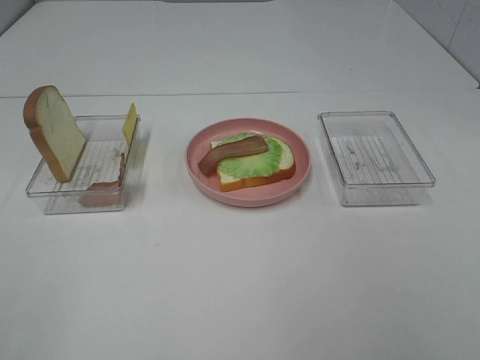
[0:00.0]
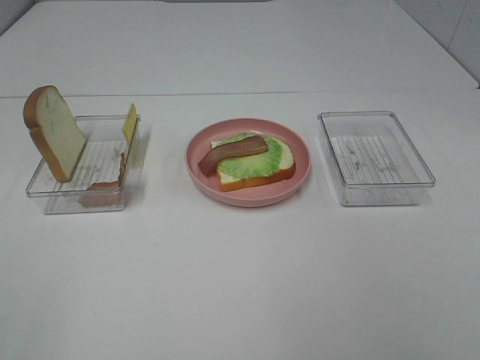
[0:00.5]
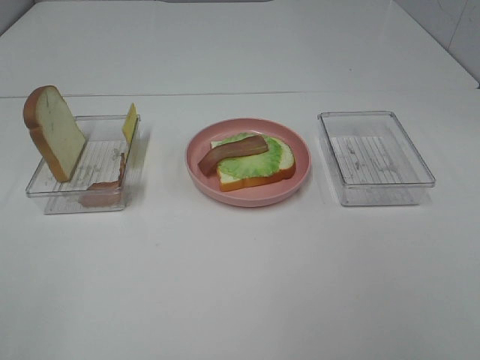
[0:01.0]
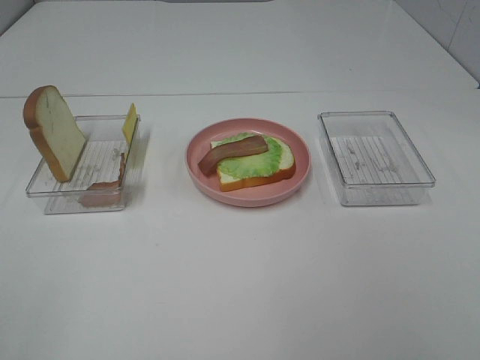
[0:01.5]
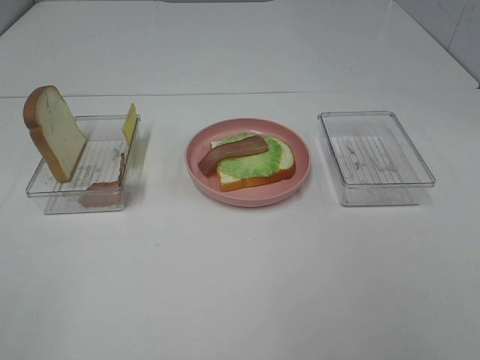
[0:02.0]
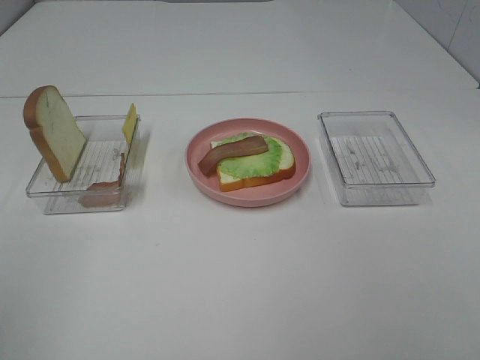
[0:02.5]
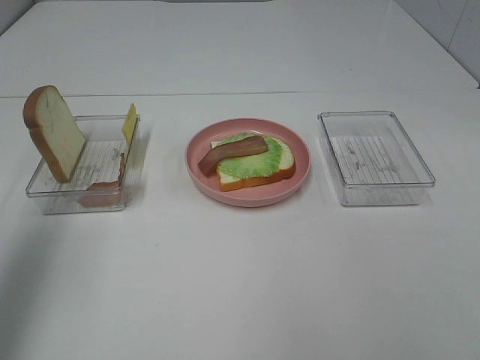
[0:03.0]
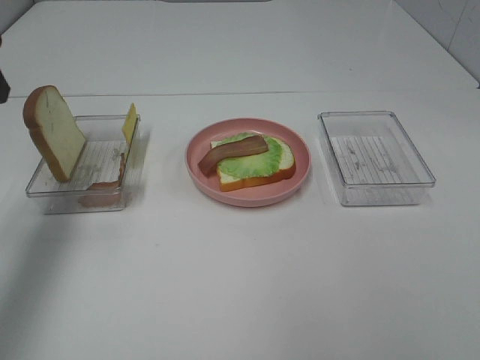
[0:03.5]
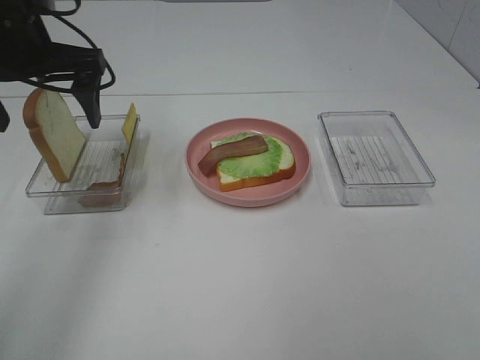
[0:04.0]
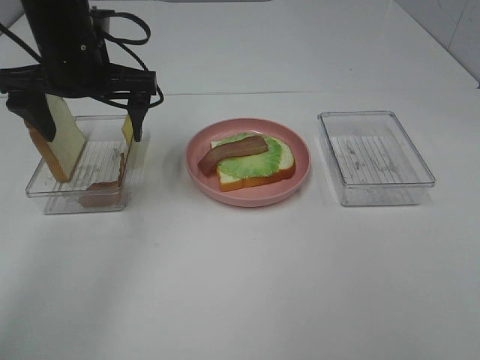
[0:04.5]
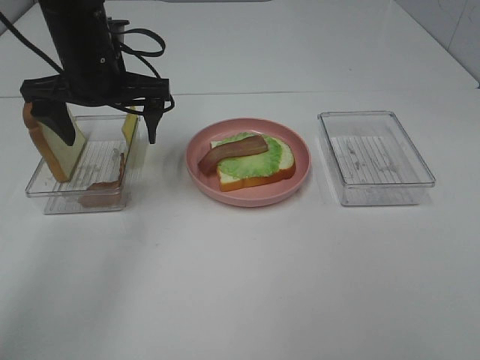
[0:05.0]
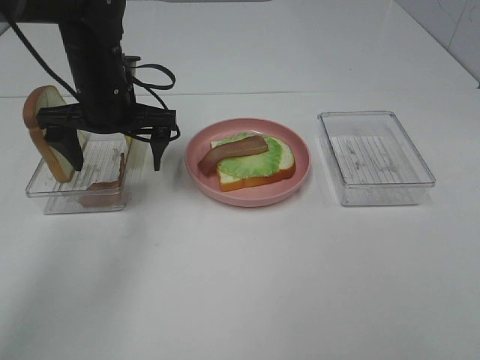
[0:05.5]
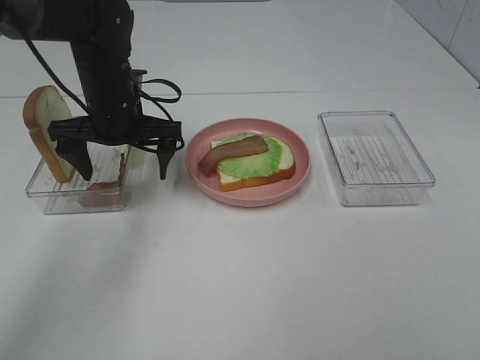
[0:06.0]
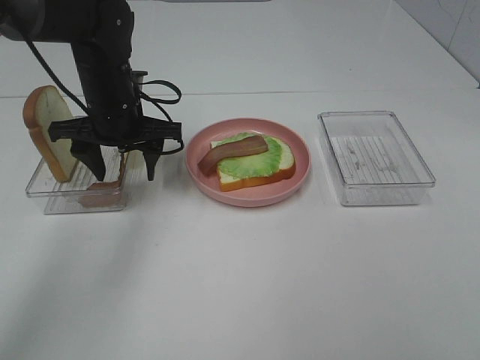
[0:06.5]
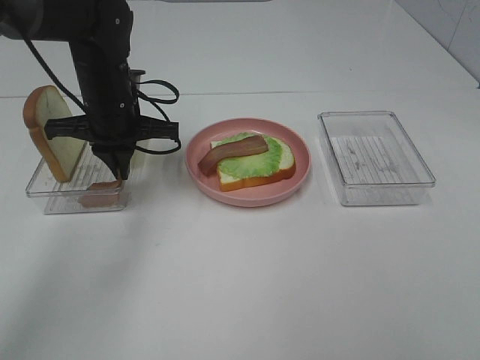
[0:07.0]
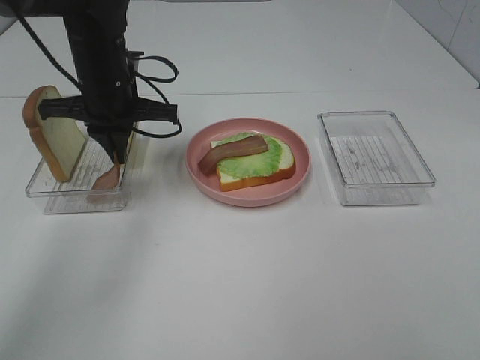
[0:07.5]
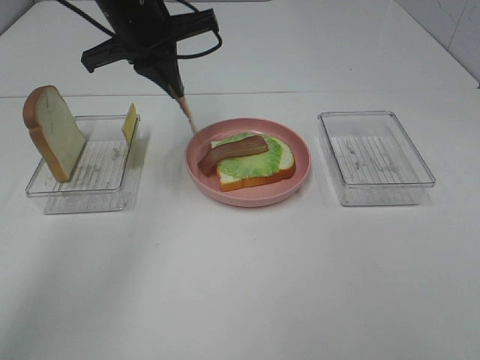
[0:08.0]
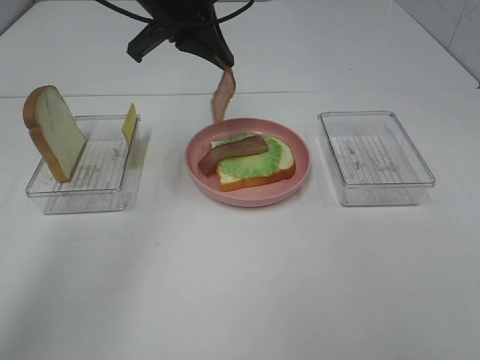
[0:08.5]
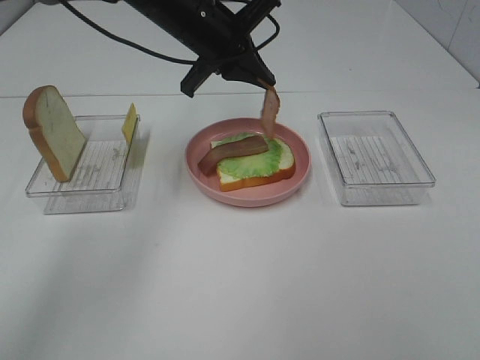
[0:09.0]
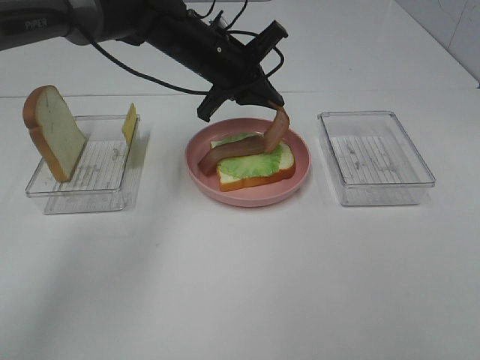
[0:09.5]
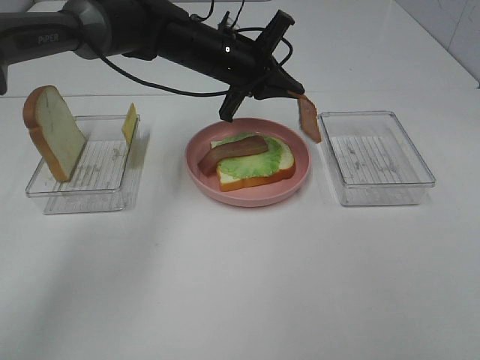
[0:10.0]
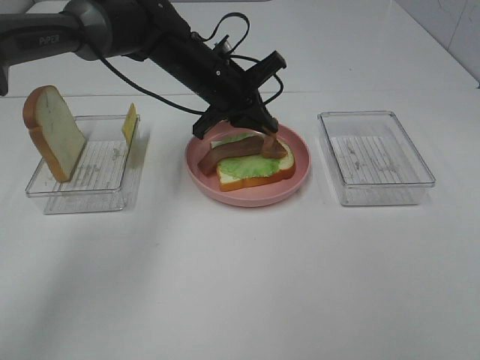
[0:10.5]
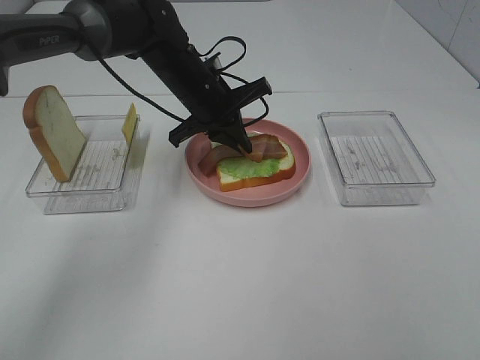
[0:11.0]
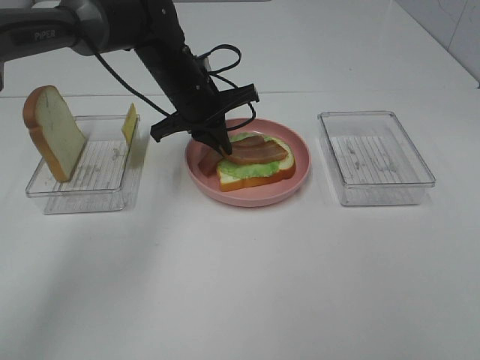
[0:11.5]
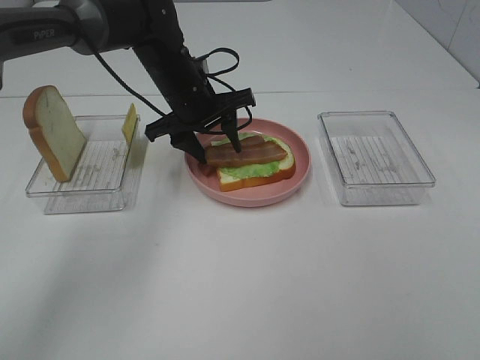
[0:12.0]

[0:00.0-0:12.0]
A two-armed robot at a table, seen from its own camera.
Task of the whole recording: Make sandwiches.
Step, 0:00.0 to 0:07.0: Left hand:grab the bacon.
0:00.0 to 0:02.0: Both grippers stay about where they are.
0:02.0 to 0:04.0: The left gripper moves forward, approximately 35 cm.
0:04.0 to 0:06.0: The left gripper goes roughly 15 cm downward and to the right.
0:06.0 to 0:08.0: The left gripper moves upward, approximately 10 cm, and closes its fingers.
0:08.0 to 0:10.0: The left gripper goes approximately 10 cm downward and to the right.
0:10.0 to 0:12.0: The left gripper ends up about 5 cm from where it was, and opens.

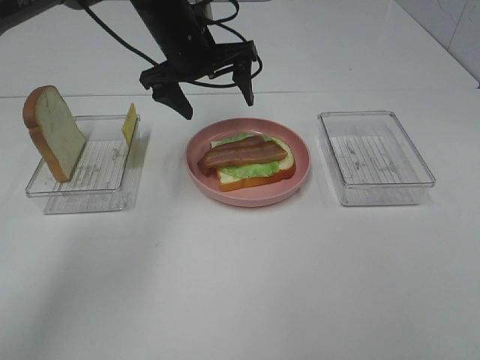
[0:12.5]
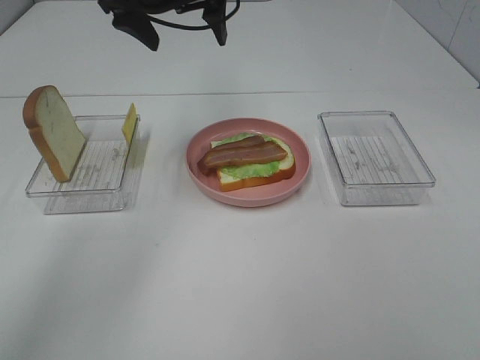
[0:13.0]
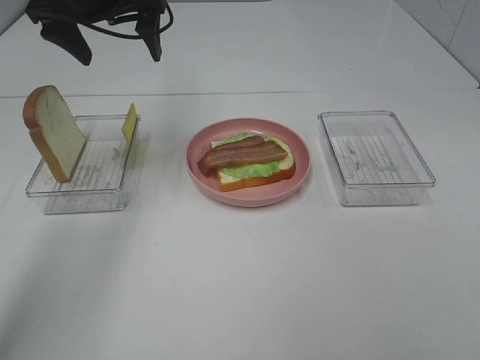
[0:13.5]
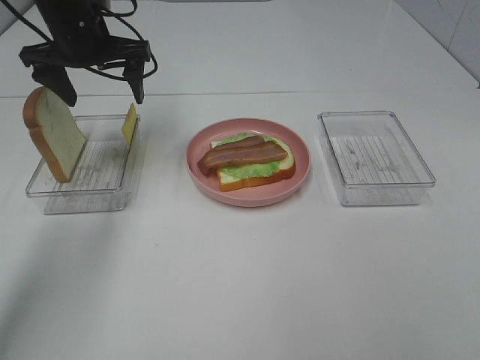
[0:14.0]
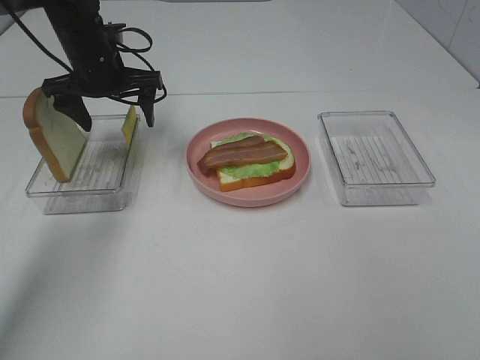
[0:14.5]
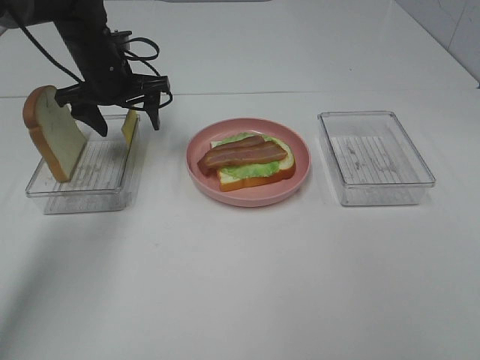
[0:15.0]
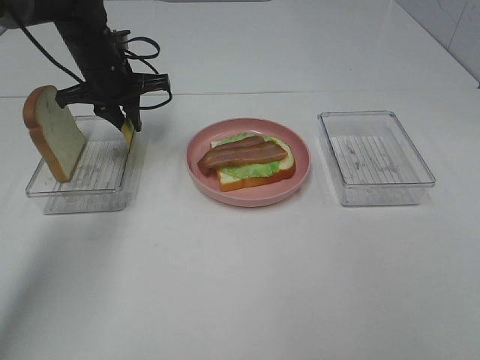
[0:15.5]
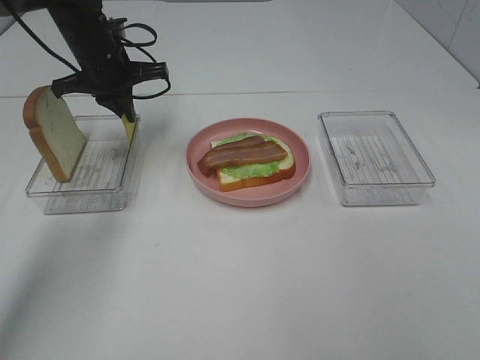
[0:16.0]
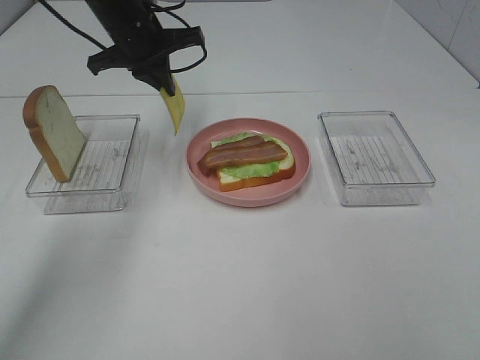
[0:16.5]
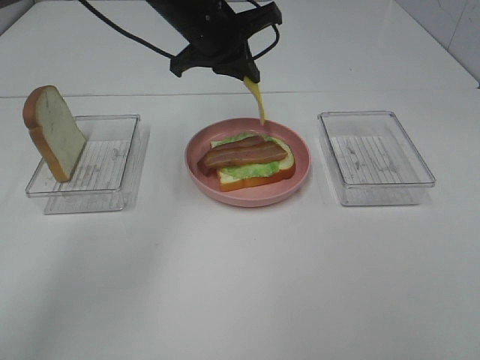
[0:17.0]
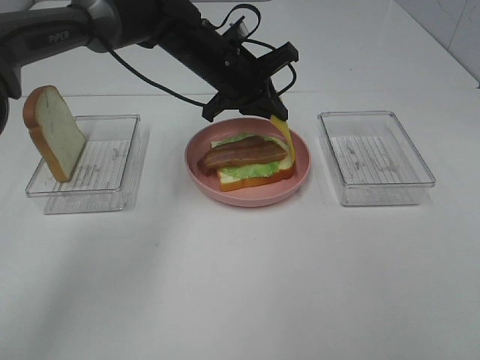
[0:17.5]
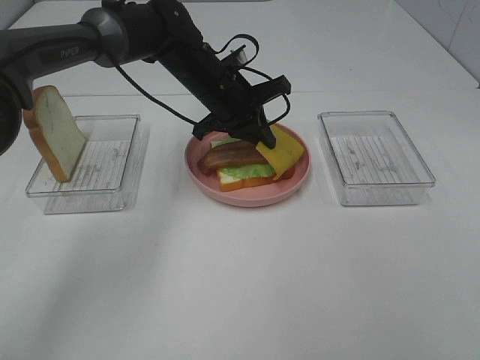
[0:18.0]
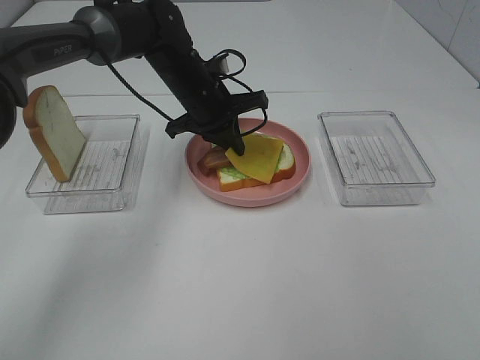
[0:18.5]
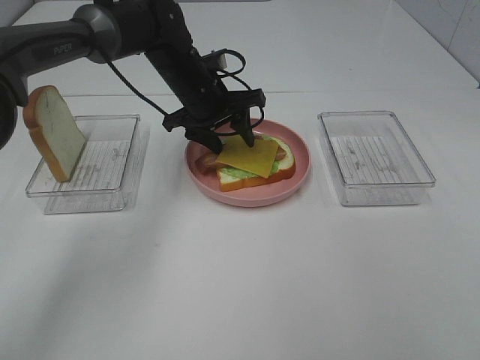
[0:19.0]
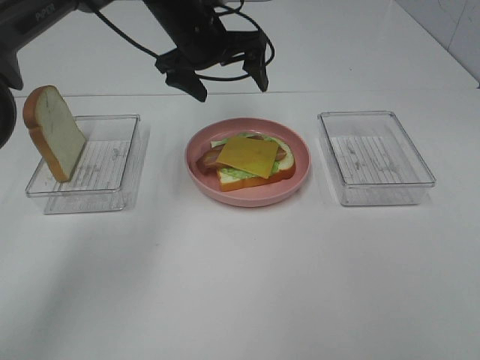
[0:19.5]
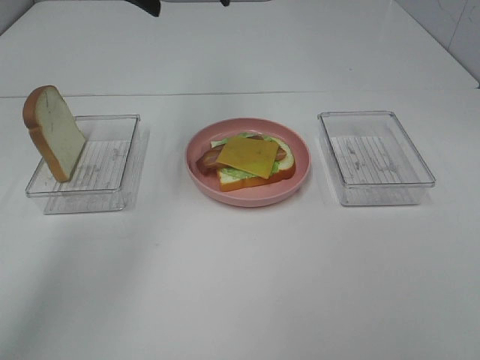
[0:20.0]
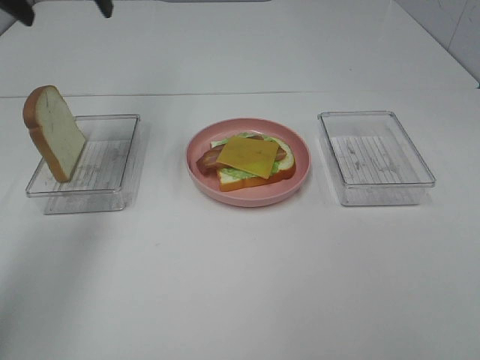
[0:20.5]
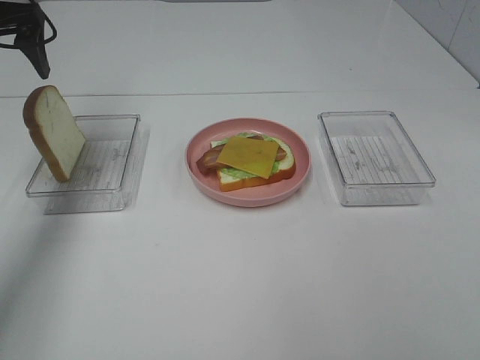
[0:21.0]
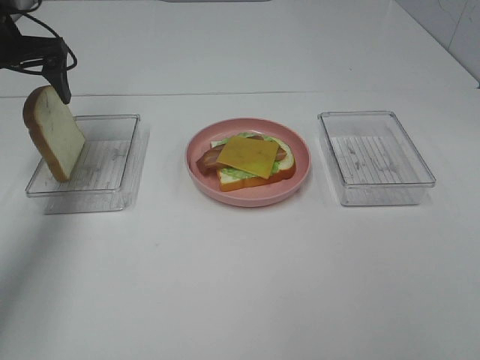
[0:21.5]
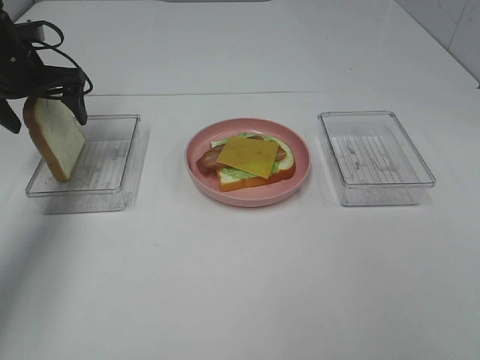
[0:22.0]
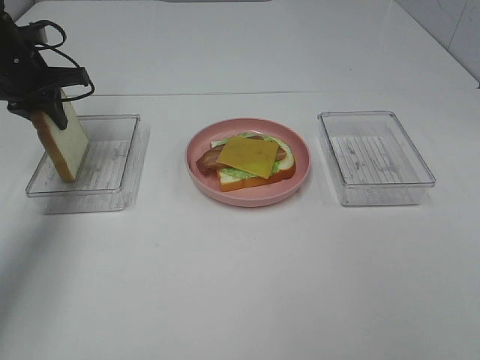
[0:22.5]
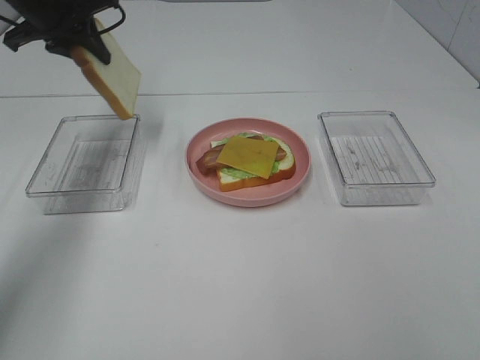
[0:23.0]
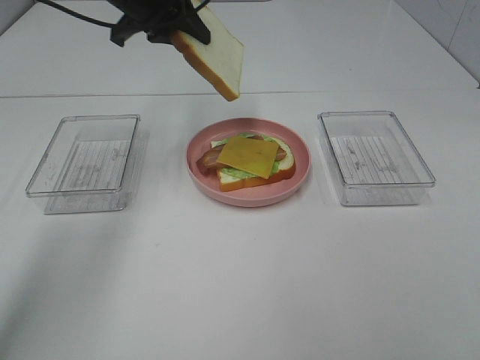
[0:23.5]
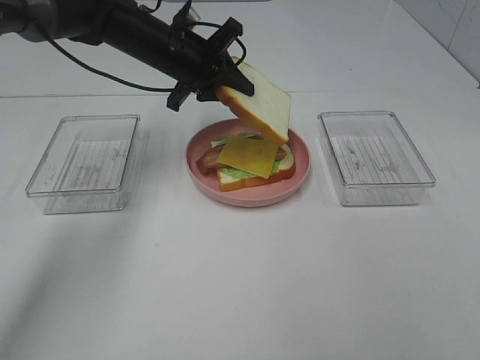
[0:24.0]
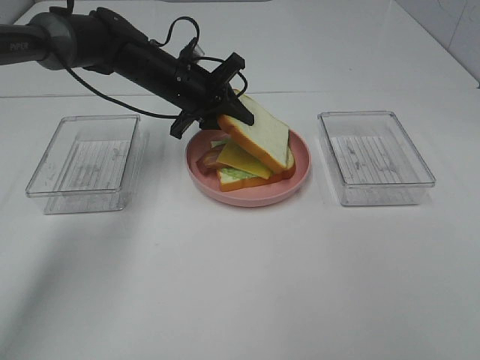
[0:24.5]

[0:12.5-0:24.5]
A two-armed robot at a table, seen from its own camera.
Task of the whole recording: Make sandwiches.
Step, 0:13.0 to 0:16.0: Left hand:grab the cheese slice.
Step, 0:16.5 to 0:19.0: Left hand:place the cheese slice on top of the bacon.
0:12.5 to 0:14.5: The left gripper goes approximately 10 cm to the left, and reaches approximately 10 cm upward, then returns.
0:14.5 to 0:16.5: The left gripper travels to the right by about 5 cm, and closes.
0:16.5 to 0:18.5: The left gripper shifts approximately 10 cm downward and to the right.
0:18.5 to 0:20.5: The left gripper is displaced upward and to the left by about 25 cm, and opens.
0:20.5 to 0:22.5: The left gripper heads downward and to the left, covering about 15 cm, and closes up.
0:22.5 to 0:24.5: The left gripper goes roughly 20 cm to the right.

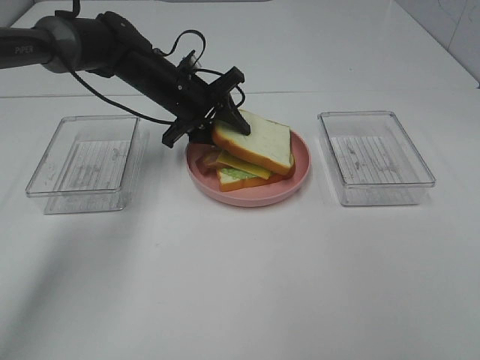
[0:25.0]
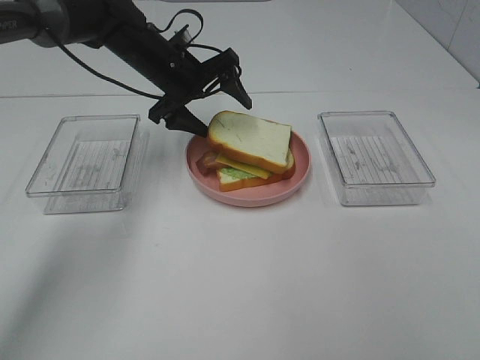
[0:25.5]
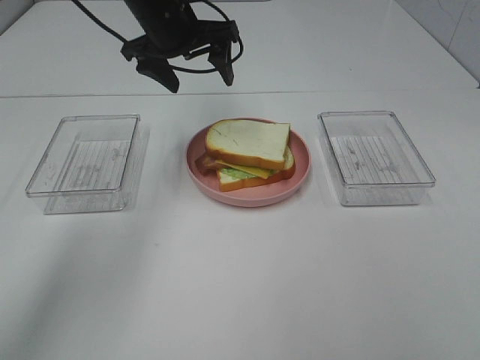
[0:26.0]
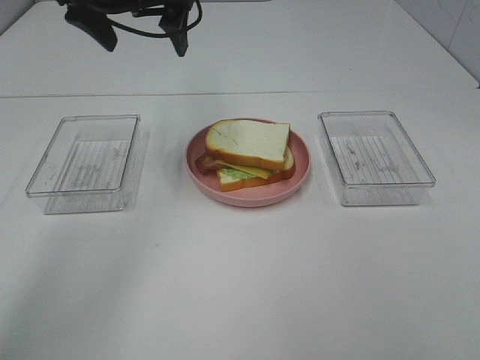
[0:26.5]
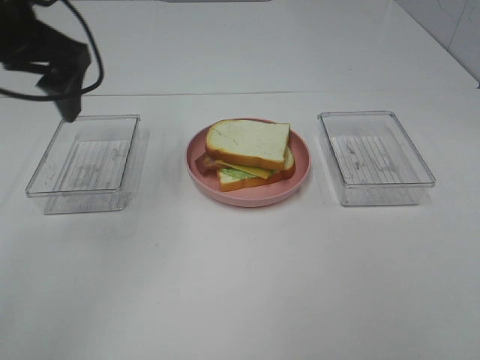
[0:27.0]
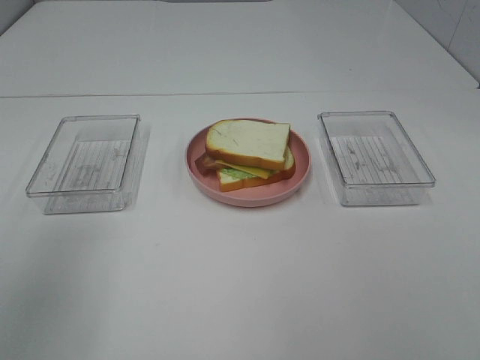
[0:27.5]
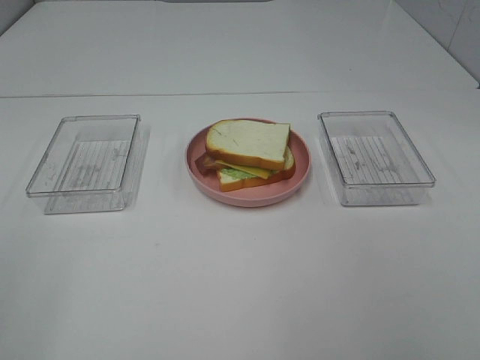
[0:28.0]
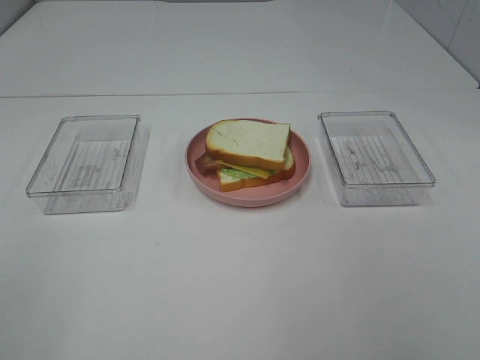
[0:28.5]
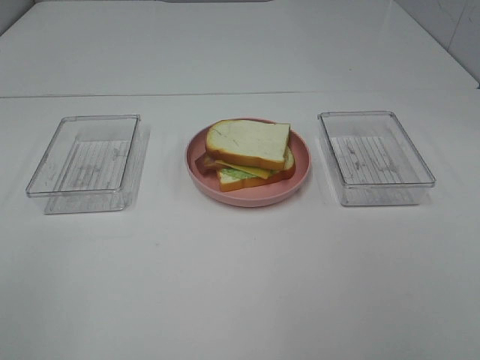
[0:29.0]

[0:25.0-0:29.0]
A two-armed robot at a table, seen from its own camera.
Task of the whole recording: Make sandwiches.
0:25.0 to 0:27.0: The left gripper heads upward, backward and to the left, covering roughly 25 cm, and opens up.
0:27.0 to 0:29.0: The left gripper moves backward, some 30 cm.
